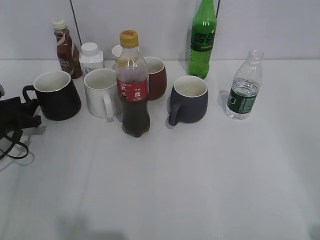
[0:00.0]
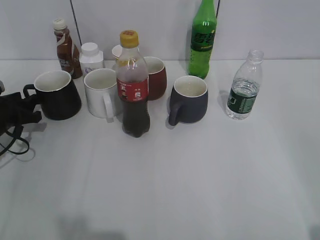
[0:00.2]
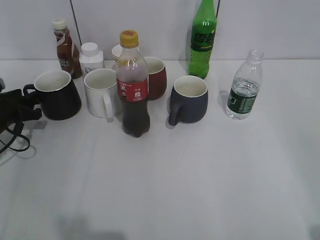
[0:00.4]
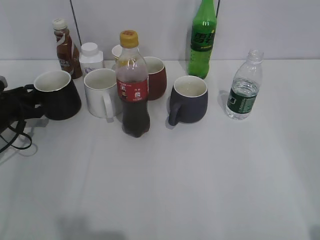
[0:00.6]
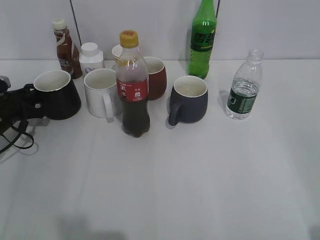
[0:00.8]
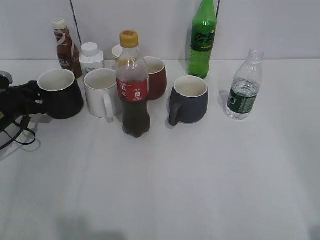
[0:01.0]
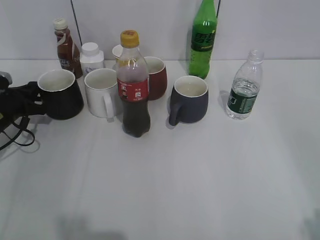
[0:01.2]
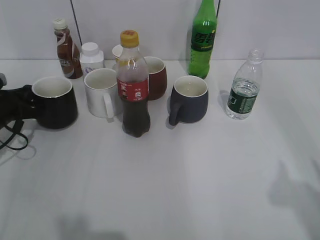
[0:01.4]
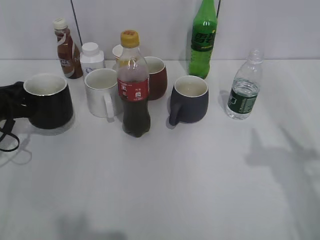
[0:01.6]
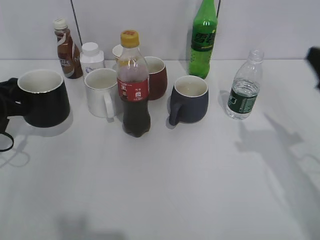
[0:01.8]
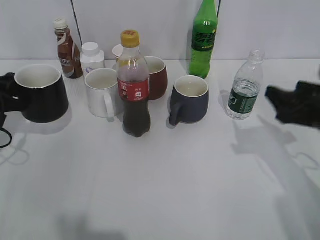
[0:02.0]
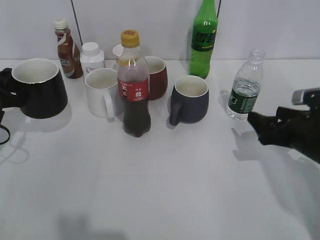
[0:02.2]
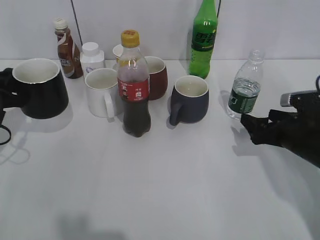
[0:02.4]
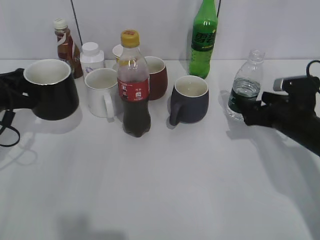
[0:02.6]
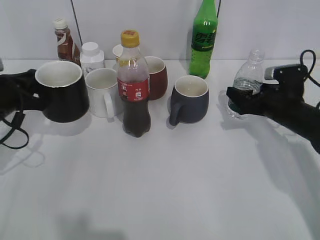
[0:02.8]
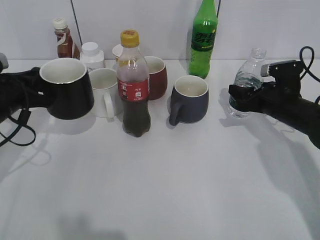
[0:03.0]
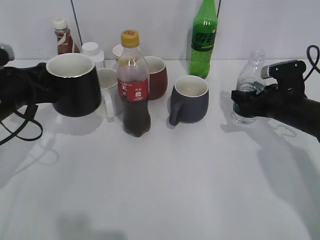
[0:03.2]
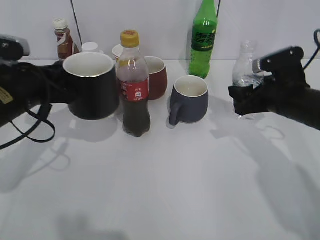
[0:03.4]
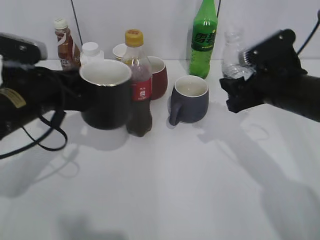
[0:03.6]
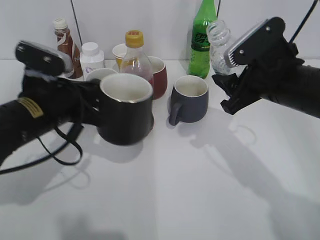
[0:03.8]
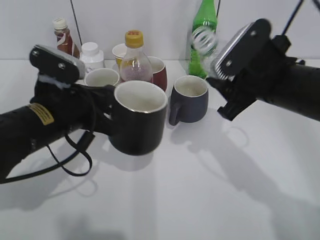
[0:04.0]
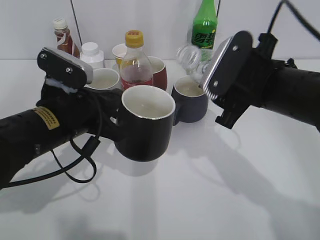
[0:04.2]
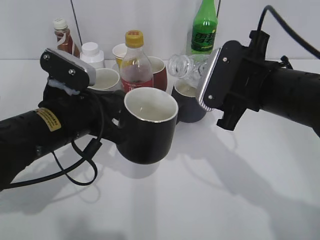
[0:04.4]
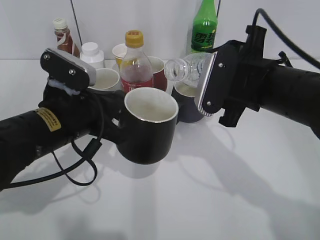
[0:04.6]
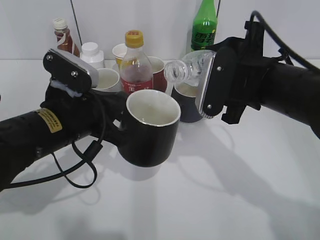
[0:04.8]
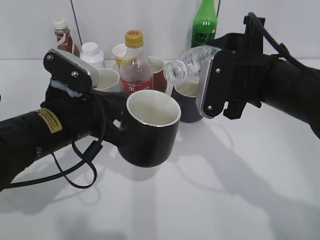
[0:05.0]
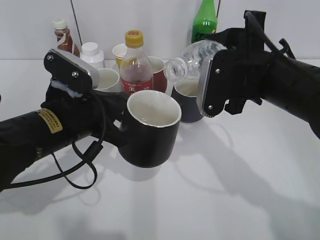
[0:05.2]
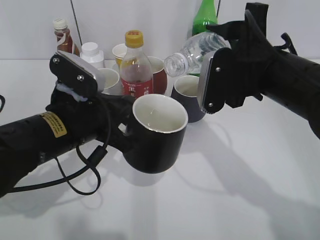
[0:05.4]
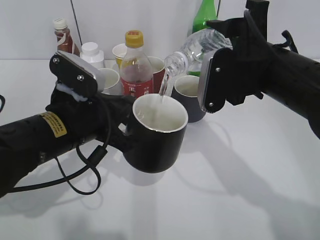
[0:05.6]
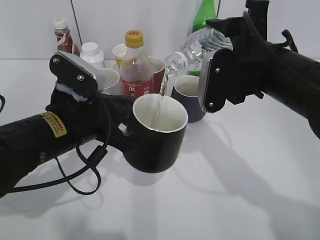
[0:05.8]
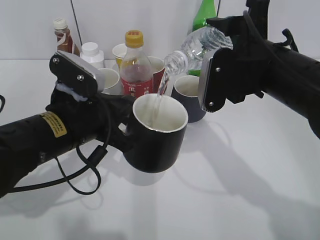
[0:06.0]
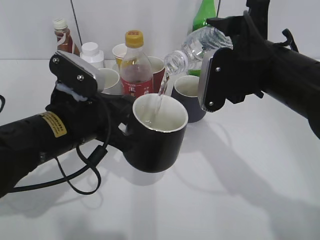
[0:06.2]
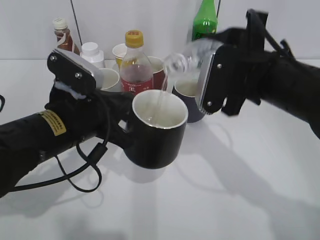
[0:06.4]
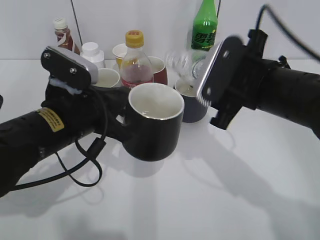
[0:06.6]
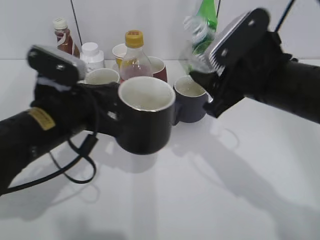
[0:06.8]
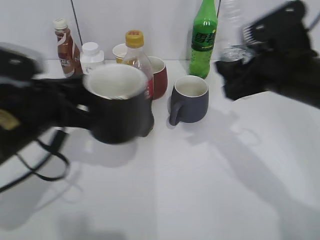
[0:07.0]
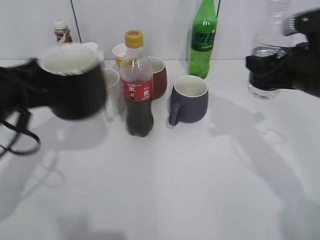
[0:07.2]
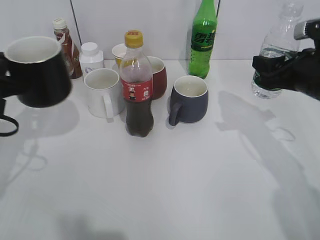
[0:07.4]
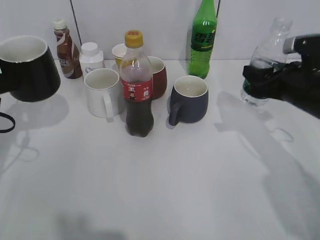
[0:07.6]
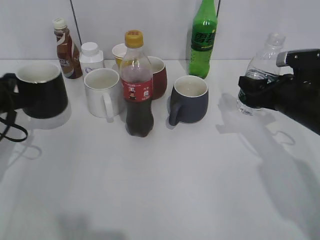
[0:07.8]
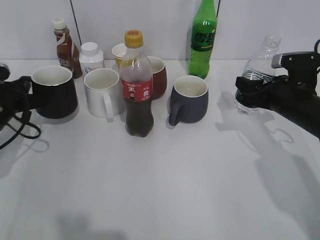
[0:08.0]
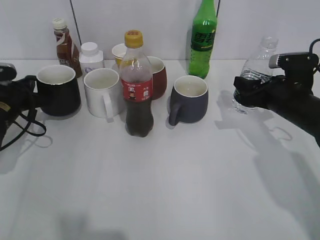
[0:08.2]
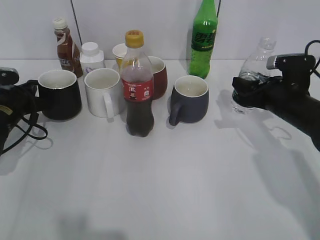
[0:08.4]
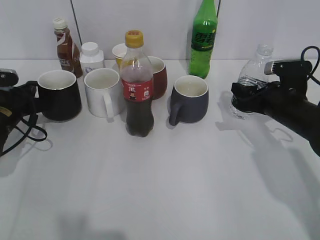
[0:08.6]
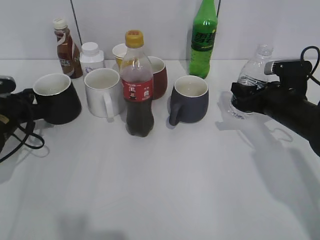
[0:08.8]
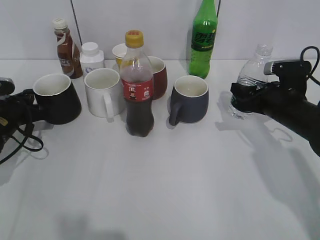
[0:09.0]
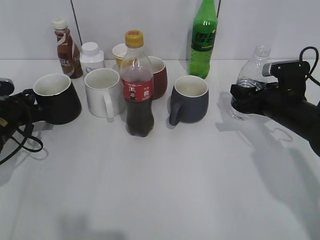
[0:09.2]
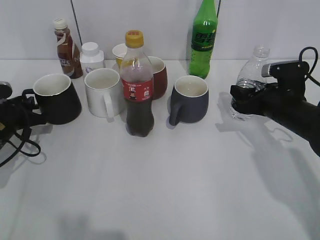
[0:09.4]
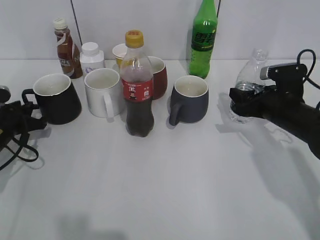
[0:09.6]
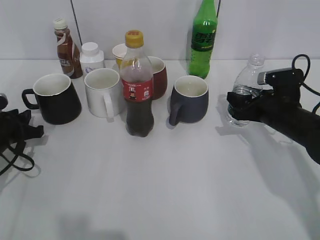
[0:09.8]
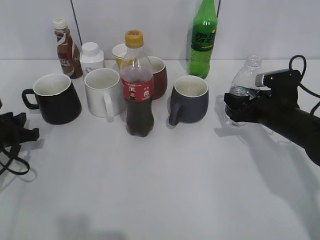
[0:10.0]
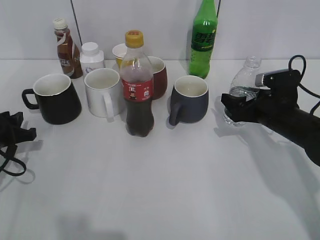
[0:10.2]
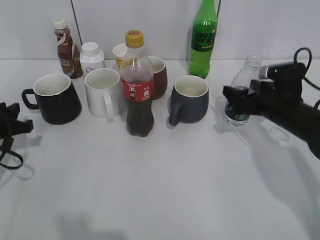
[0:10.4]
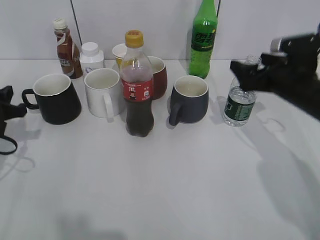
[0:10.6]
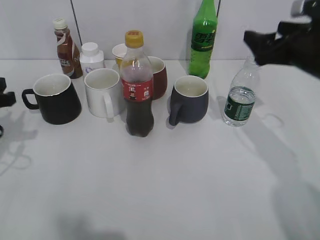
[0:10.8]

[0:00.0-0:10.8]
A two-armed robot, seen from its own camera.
Step, 0:01.2 to 0:02.0: Lift the black cup with left gripper.
Step, 0:02.2 to 0:03.0: Grasp the bottle with water with right gripper.
Step, 0:03.2 to 0:06.4: Pour the water from bottle to cup with right gripper.
Step, 0:06.8 to 0:10.4: Place the water bottle on the table with right gripper.
0:00.0 to 0:01.6: The right gripper travels forward by approximately 15 cm, while the left gripper closes.
0:01.6 to 0:03.0: The left gripper moves roughly 5 cm. The right gripper travels downward and forward by roughly 30 cm, and closes.
0:03.0 to 0:04.6: The right gripper heads upward, to the left and backward, covering approximately 20 cm. The left gripper shifts about 15 cm to the right and backward.
0:06.2 to 0:07.8: The left gripper shifts roughly 20 cm to the left and forward. Meanwhile the right gripper travels downward, to the right and forward by about 15 cm.
0:07.8 to 0:09.2: The left gripper travels downward by roughly 5 cm.
0:09.2 to 0:10.8: The right gripper is displaced upward by some 10 cm, and opens its fingers, while the left gripper is displaced upward and backward by approximately 10 cm.

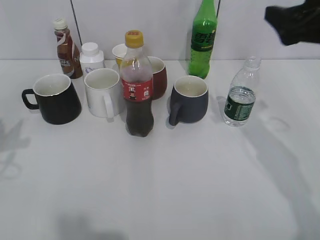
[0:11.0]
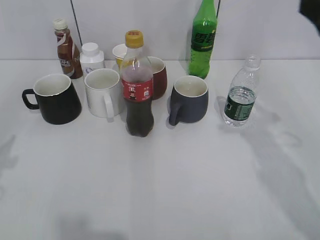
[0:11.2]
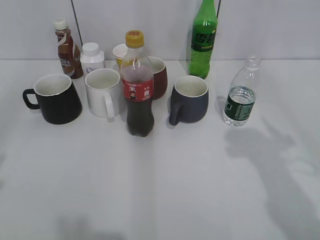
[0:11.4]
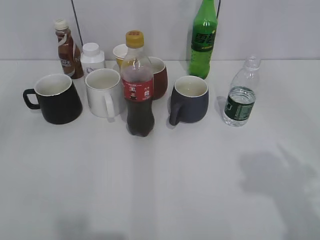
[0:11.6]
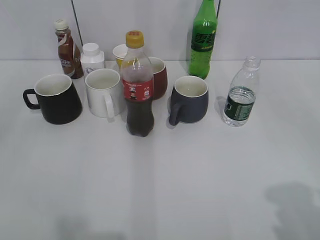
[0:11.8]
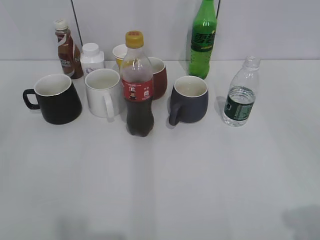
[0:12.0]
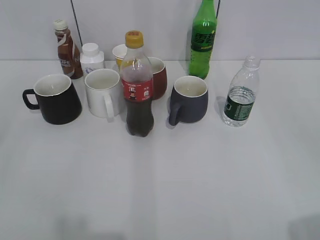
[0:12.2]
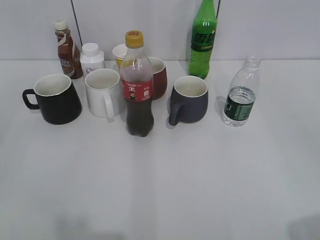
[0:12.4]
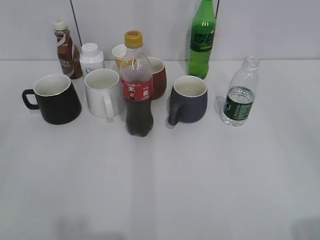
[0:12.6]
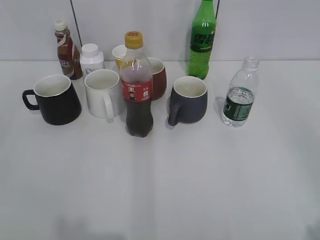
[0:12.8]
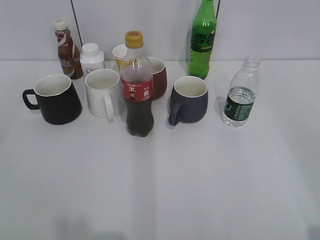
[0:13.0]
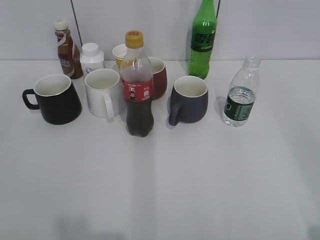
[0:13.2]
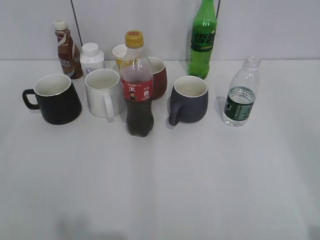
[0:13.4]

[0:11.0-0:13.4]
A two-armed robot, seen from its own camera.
0:11.0 to 0:12.2: The right gripper heads backward, covering approximately 30 cm, and closes its fingers.

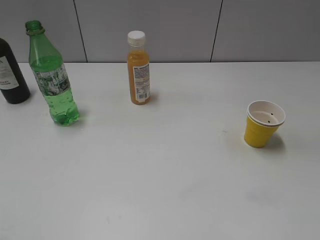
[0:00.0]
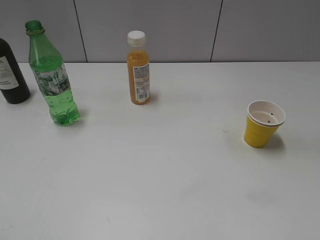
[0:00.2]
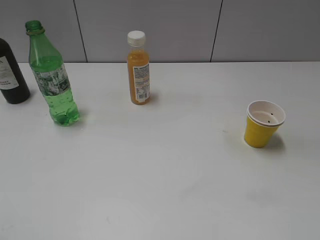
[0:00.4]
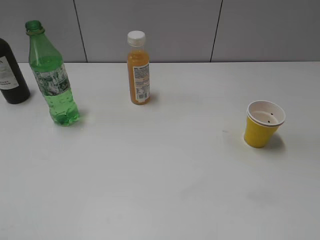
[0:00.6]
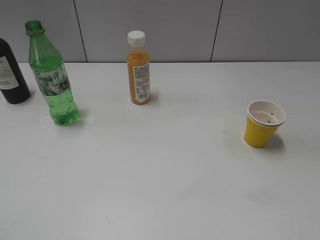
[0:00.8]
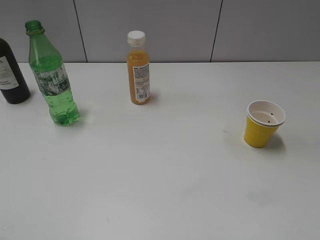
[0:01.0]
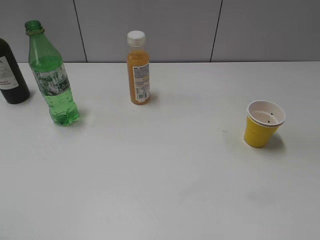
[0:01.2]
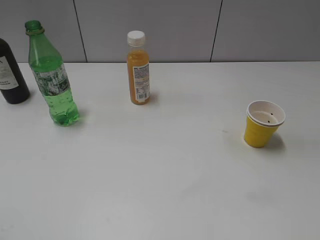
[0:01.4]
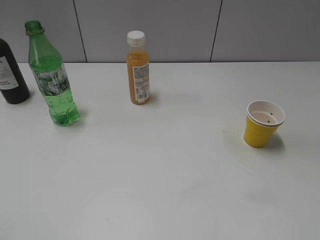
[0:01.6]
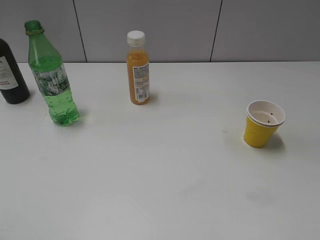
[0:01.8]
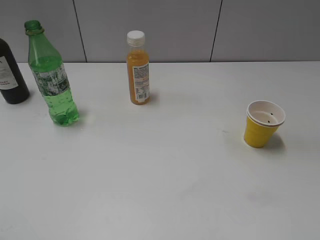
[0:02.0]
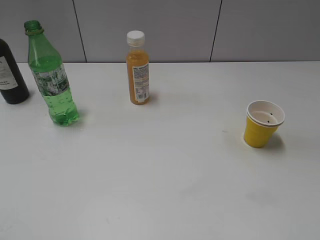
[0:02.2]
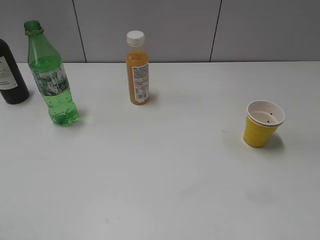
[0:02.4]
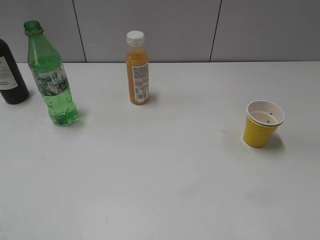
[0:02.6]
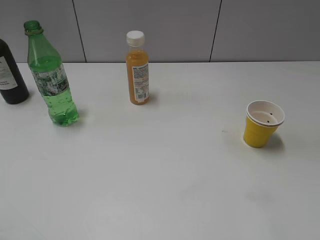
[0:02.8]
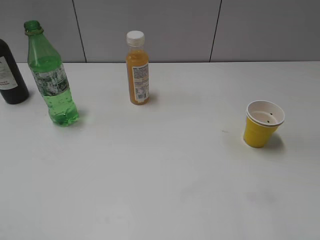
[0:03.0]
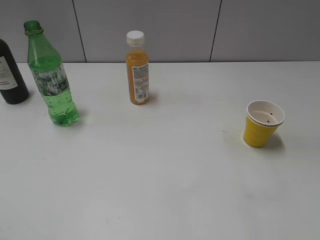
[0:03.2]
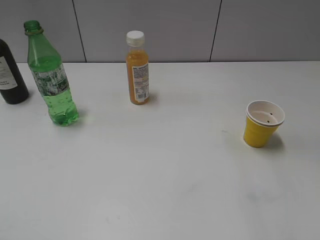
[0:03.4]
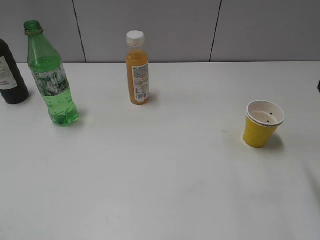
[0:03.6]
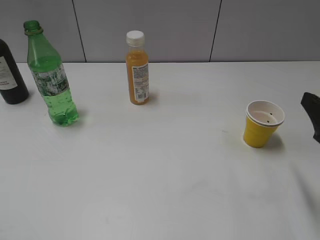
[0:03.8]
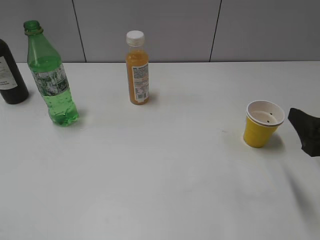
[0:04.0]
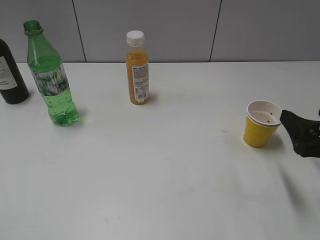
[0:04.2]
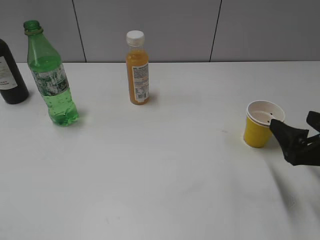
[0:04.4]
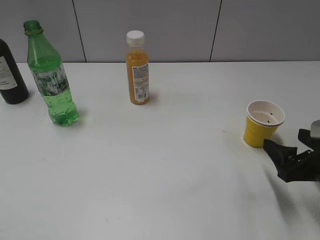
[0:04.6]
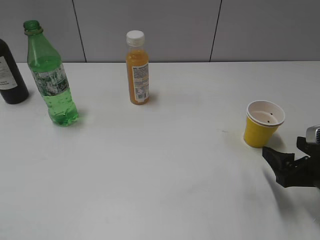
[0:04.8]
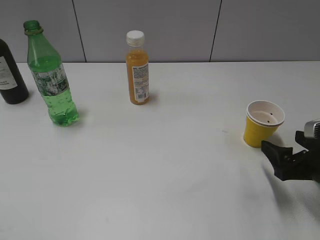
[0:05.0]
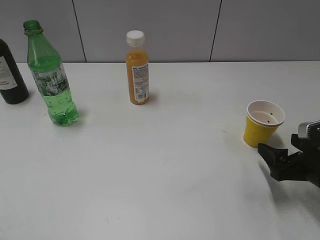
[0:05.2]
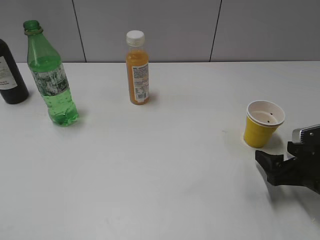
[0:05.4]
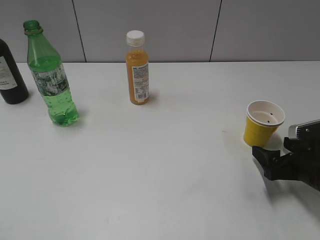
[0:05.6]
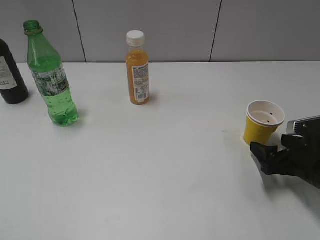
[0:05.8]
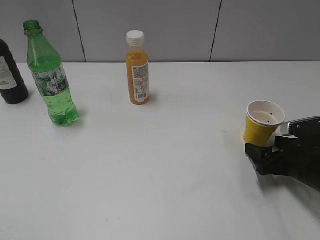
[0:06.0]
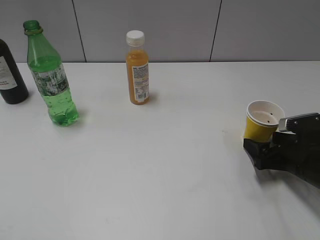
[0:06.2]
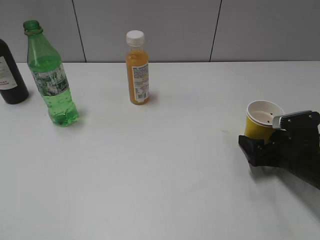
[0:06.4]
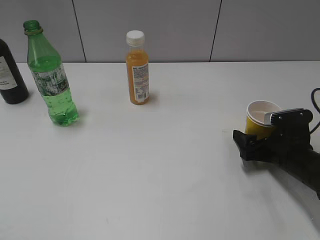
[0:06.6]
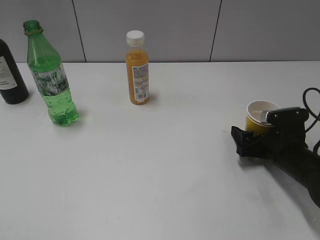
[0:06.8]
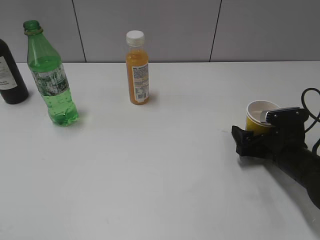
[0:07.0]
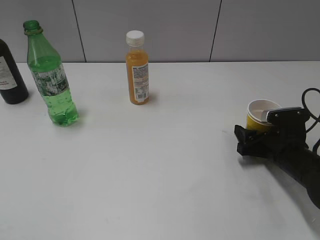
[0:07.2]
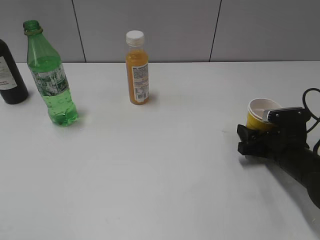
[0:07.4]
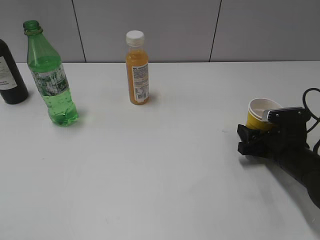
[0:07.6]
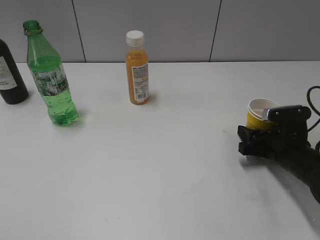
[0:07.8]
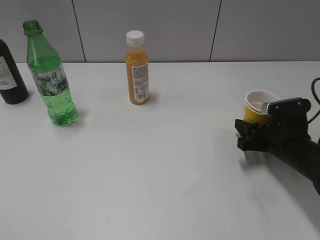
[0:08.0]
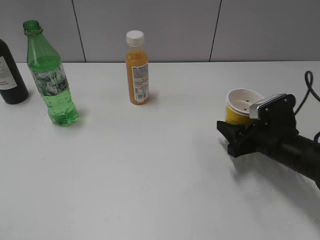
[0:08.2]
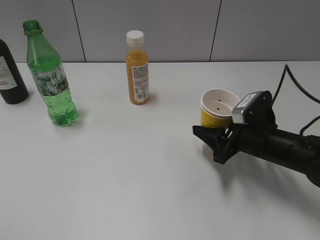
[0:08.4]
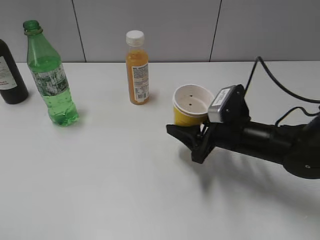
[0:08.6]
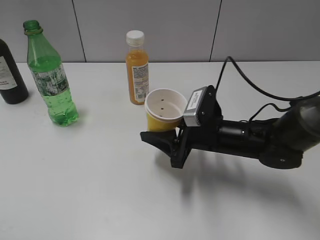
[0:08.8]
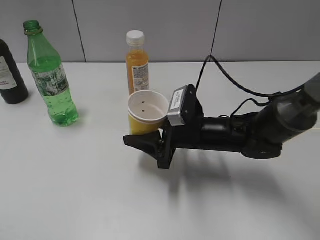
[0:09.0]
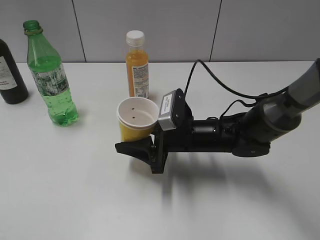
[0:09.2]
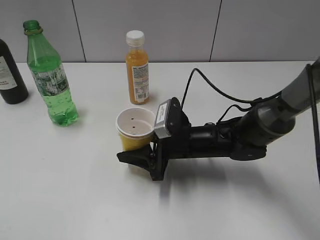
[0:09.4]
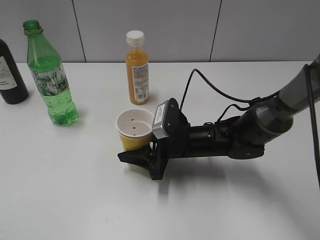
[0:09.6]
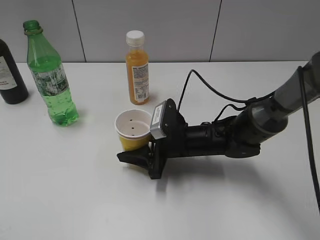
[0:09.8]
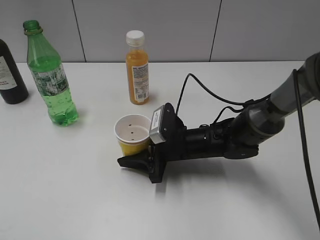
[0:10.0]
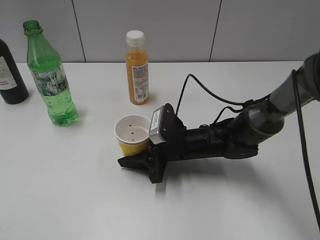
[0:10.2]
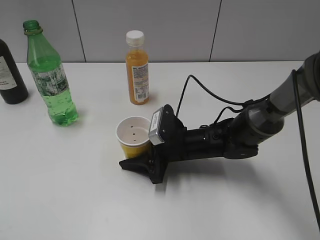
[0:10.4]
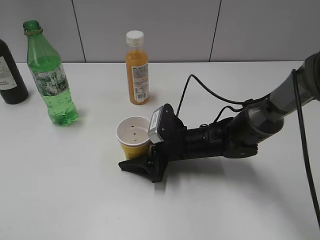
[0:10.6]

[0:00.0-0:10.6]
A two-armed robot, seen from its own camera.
Step, 0:02.0 to 0:07.6: Grasp the yellow paper cup with right gripper.
0:03.0 to 0:04.6: The right gripper moves downward, about 20 cm, and opens its fingers.
0:04.6 to 0:06.0: The right gripper shifts roughly 5 cm downward.
0:06.0 to 0:07.6: The right gripper closes.
0:07.6 to 0:09.0: The right gripper shifts approximately 20 cm to the left.
0:09.0 to 0:10.6: The right gripper travels downward by about 5 cm, and opens its fingers.
